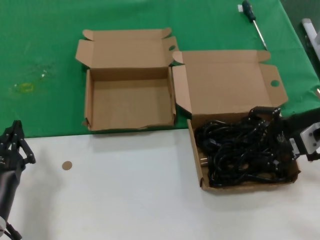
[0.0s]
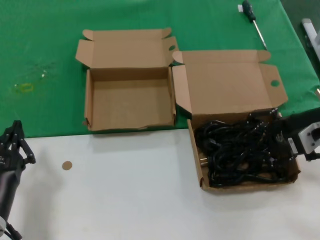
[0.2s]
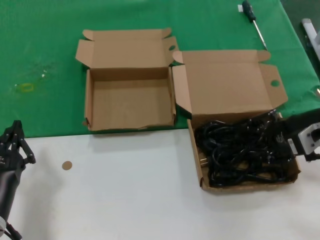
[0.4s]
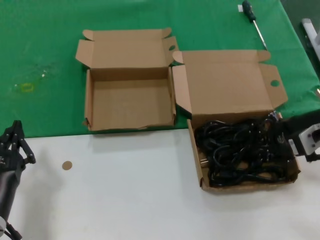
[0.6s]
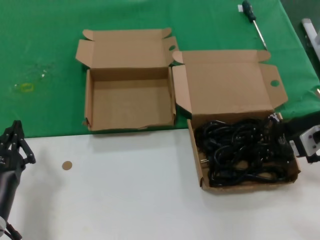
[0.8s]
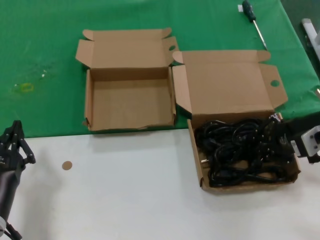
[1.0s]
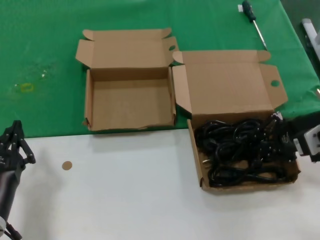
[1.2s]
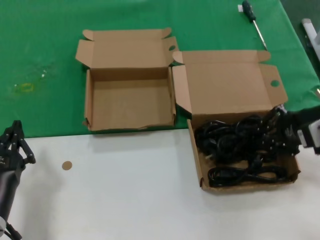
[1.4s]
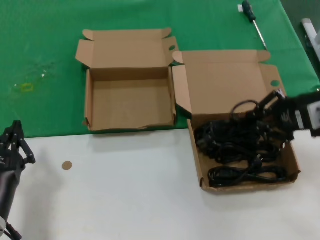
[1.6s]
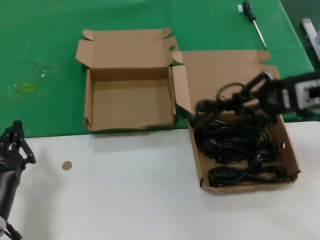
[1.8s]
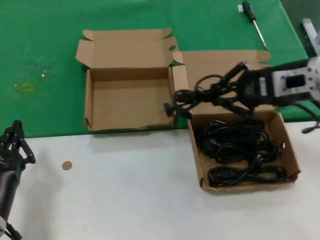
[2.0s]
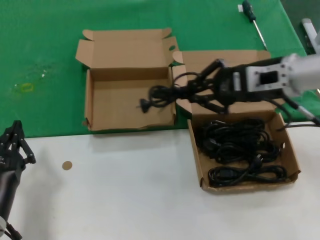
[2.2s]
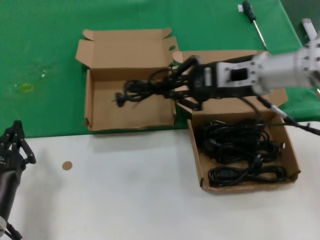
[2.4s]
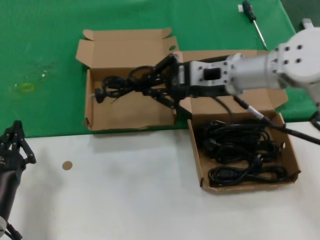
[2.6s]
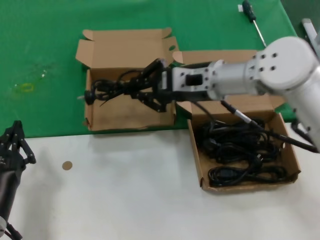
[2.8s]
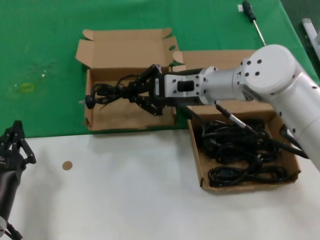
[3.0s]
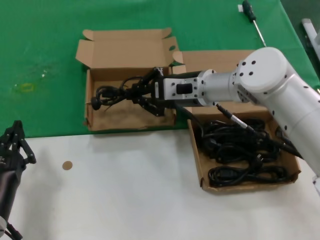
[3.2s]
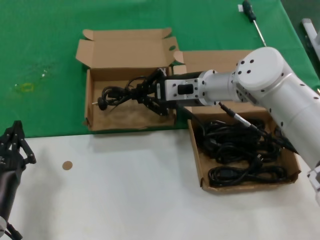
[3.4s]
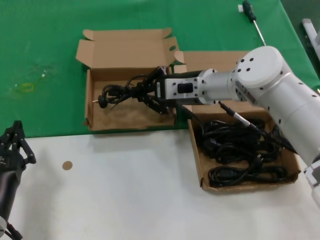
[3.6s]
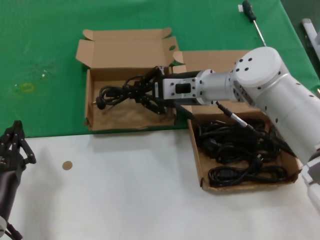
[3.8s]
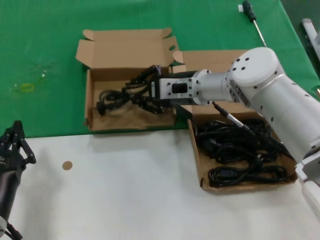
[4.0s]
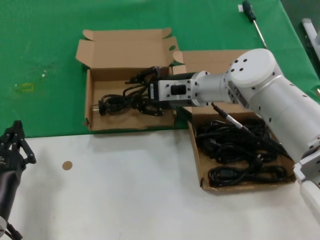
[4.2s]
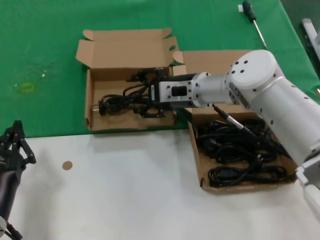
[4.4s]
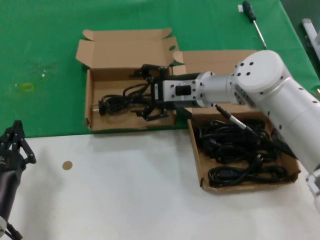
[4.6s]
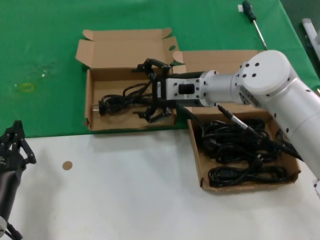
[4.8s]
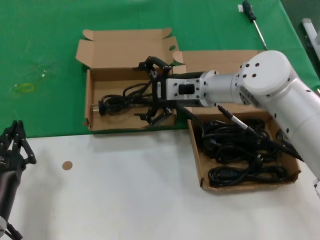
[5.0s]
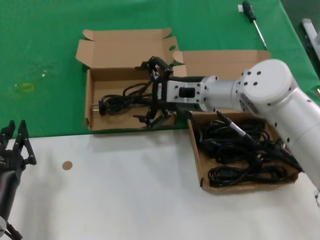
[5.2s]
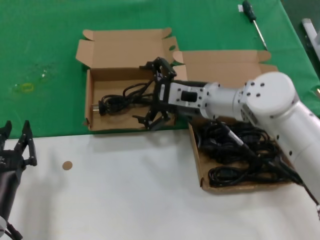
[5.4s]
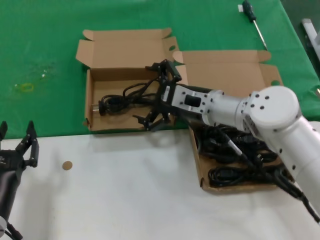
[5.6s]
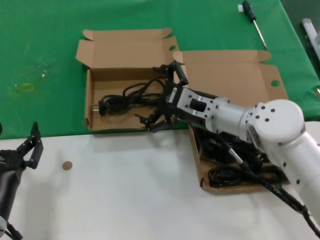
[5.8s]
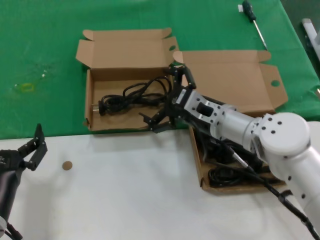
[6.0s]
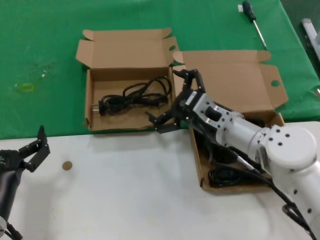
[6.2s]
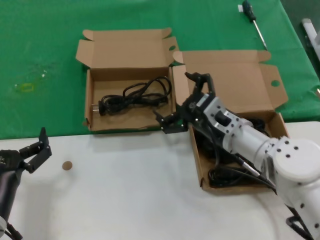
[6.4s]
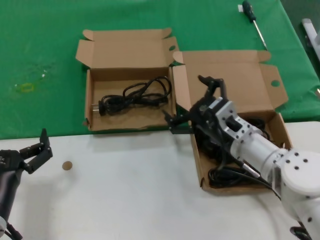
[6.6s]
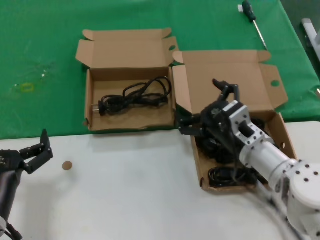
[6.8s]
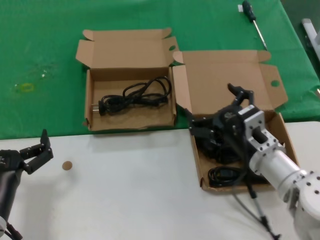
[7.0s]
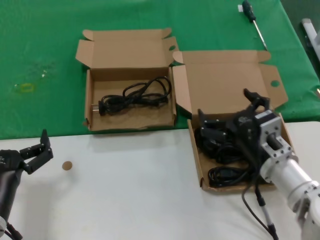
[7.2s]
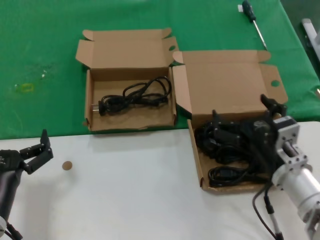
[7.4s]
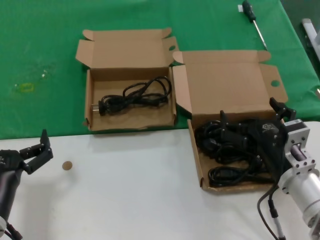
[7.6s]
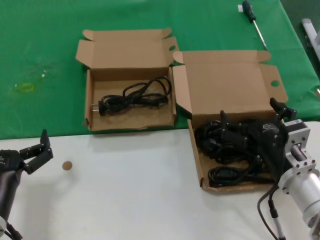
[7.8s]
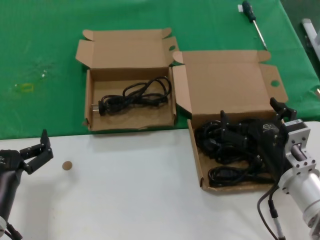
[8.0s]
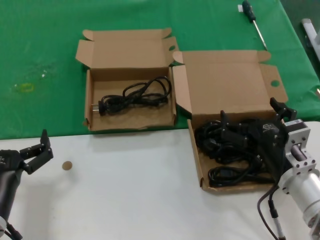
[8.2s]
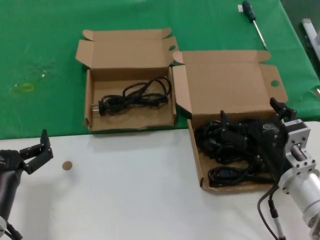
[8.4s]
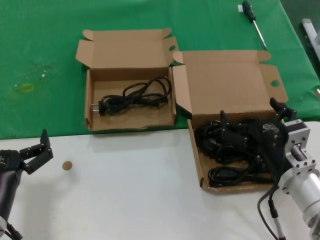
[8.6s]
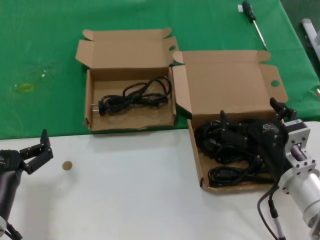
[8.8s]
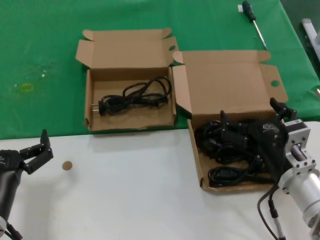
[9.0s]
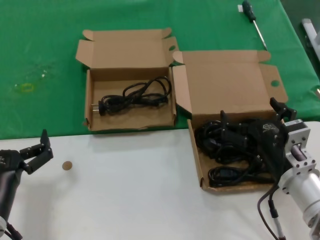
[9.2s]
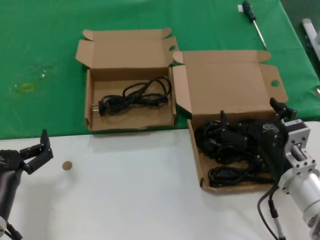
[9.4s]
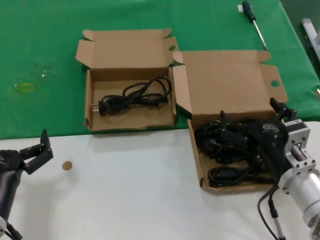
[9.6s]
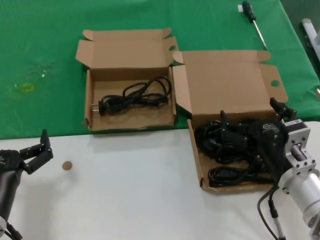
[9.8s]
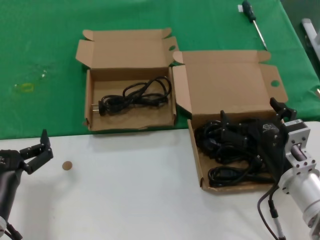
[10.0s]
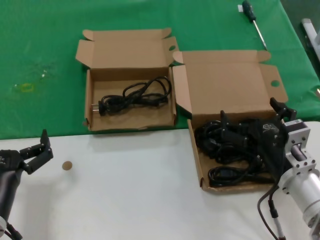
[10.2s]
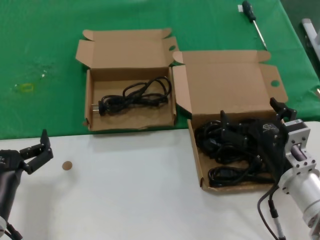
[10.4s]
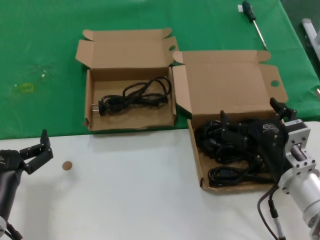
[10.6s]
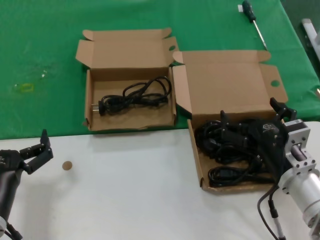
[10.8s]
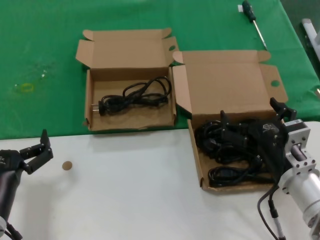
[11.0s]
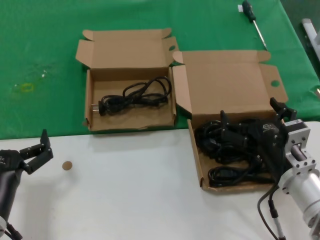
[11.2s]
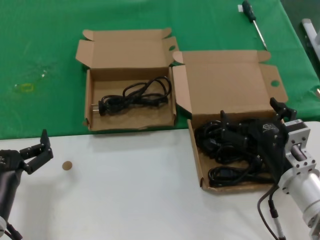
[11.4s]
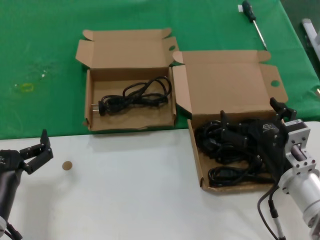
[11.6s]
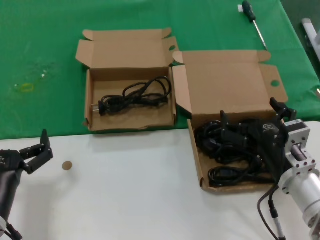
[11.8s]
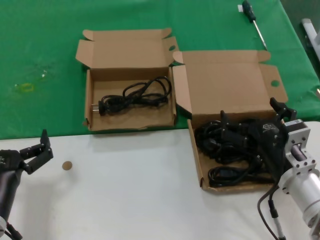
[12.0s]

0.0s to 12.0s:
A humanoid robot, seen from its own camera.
Task of the whole recording: take the parts from the box containing them and put them into an empty box.
Step, 0.8s to 4.6s: Place the data cable in the another box.
0.0s to 1.6s: The hands stay close to where they were, moving slightly.
1.6s to 3.0s: The right hand heads to the left and forward, covering some 25 cm.
3.0s to 4.4s: There are only small adjustments of the hands.
4.4s to 6.0s: The right hand moves backward and downward, approximately 10 cm.
6.0s to 7.6s: The right hand heads backward and to the right, covering approximately 15 cm.
7.6s to 12.0s: Both hands stay about where they are.

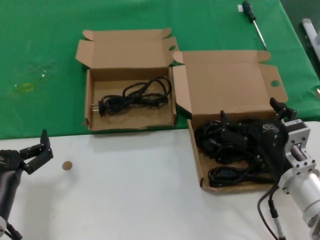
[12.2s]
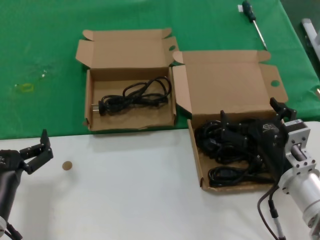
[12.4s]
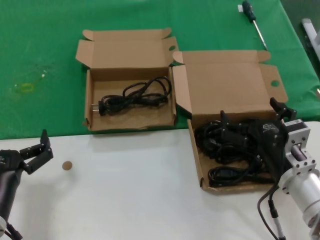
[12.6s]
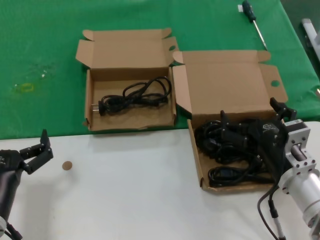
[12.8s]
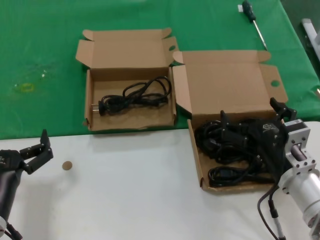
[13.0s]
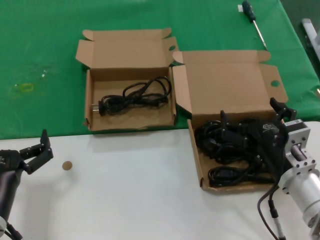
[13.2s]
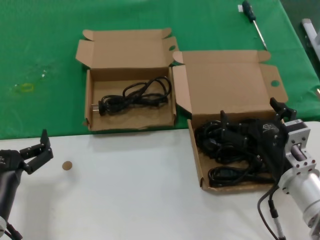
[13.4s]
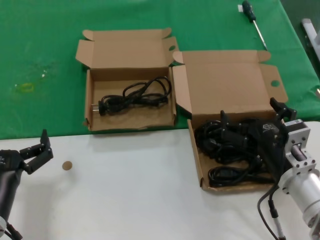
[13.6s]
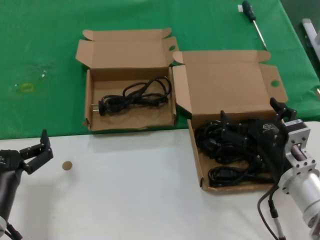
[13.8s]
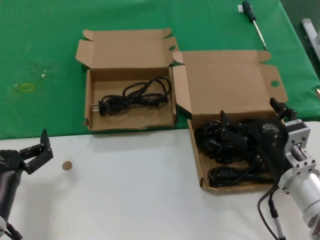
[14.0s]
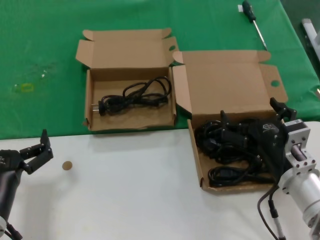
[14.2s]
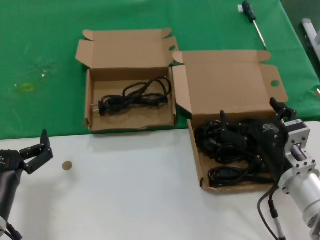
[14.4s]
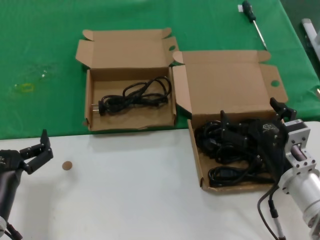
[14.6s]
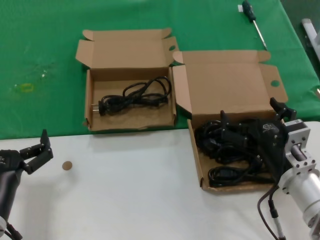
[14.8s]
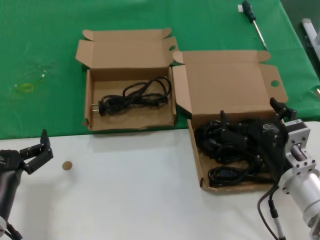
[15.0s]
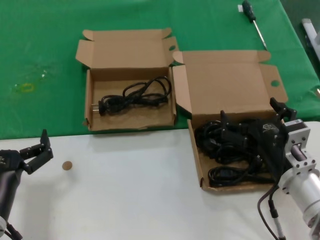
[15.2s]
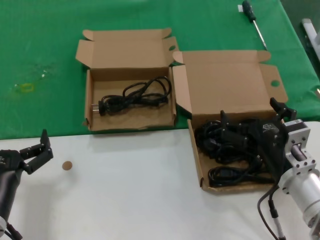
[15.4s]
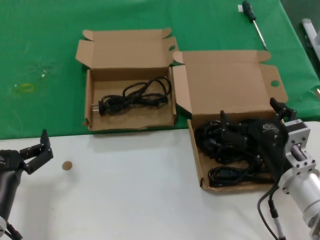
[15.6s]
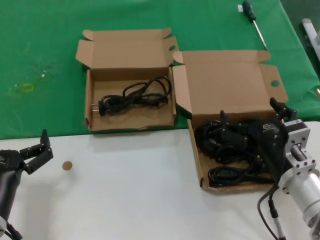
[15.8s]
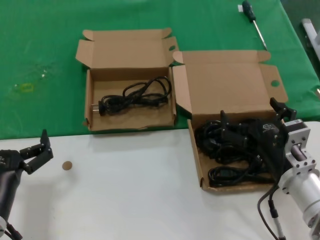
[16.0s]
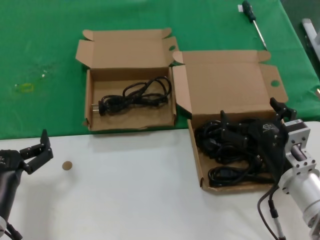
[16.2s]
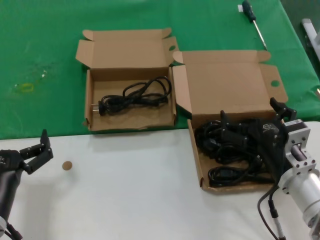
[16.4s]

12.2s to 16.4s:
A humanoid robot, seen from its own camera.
Task of the whole recording: take the parts from the box containing them and put them into an empty box.
12.2s to 16.4s: Both hands stay put.

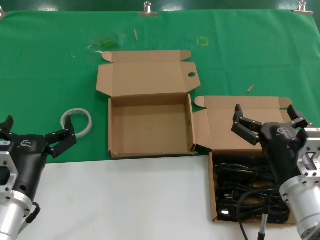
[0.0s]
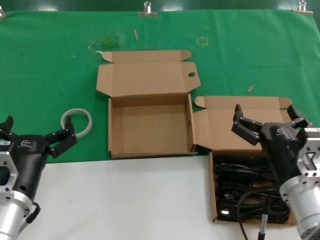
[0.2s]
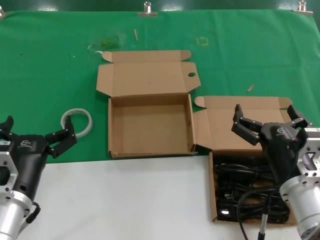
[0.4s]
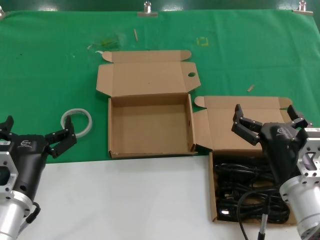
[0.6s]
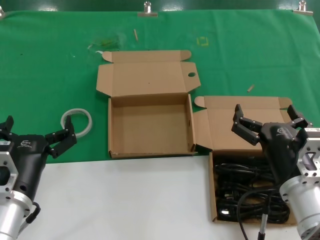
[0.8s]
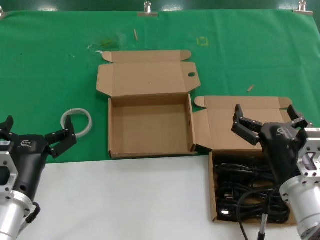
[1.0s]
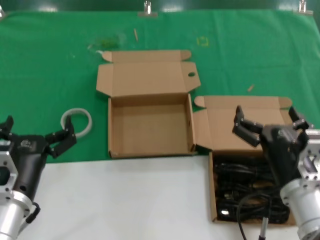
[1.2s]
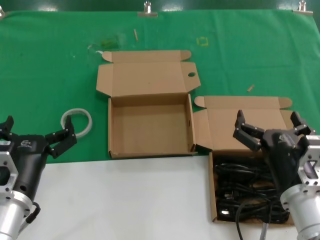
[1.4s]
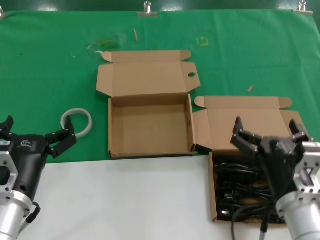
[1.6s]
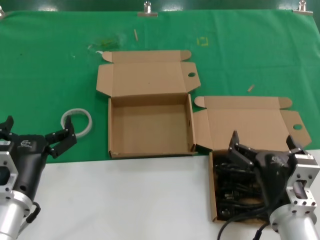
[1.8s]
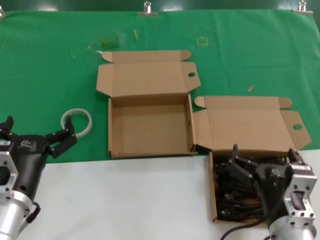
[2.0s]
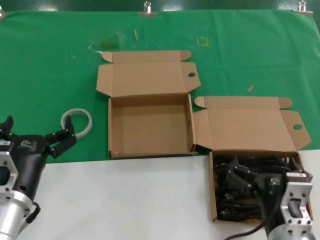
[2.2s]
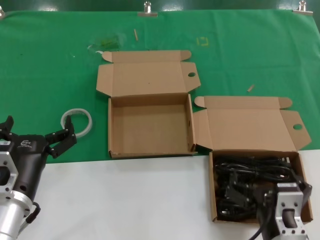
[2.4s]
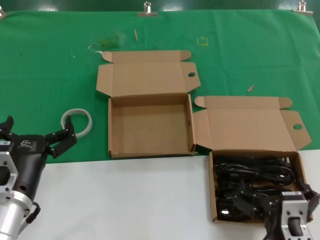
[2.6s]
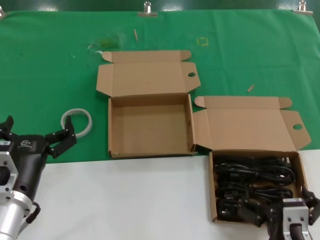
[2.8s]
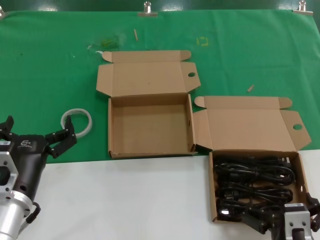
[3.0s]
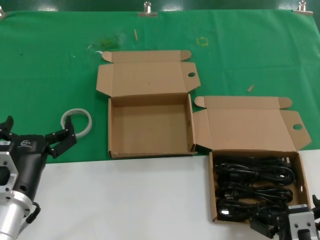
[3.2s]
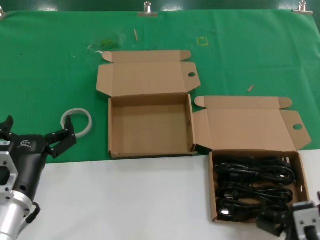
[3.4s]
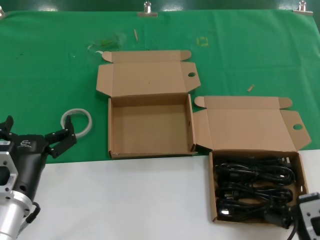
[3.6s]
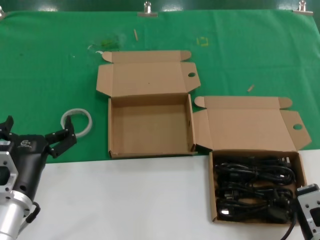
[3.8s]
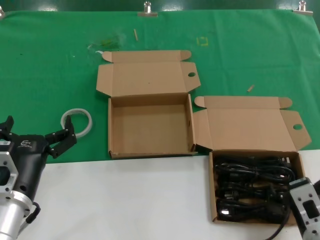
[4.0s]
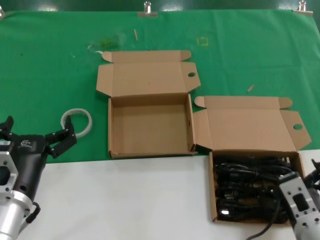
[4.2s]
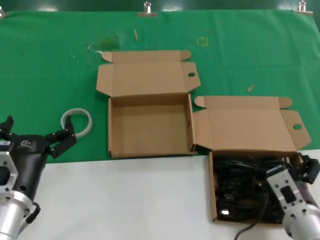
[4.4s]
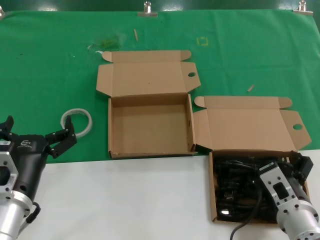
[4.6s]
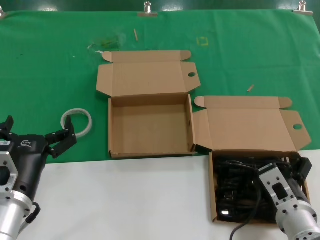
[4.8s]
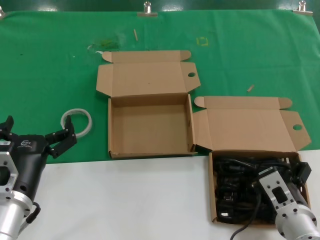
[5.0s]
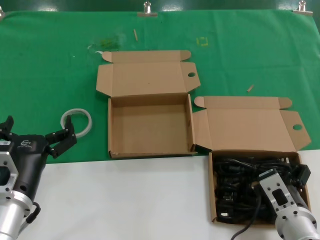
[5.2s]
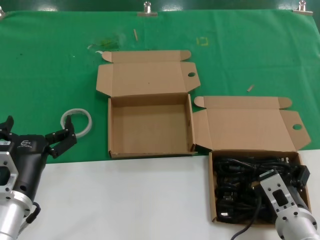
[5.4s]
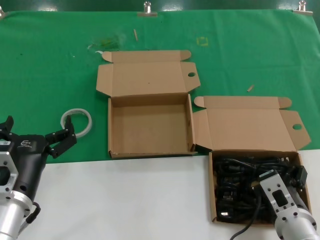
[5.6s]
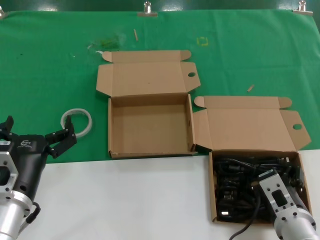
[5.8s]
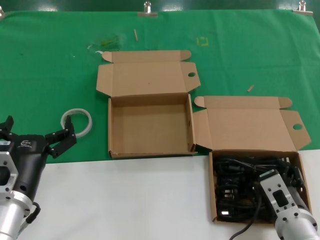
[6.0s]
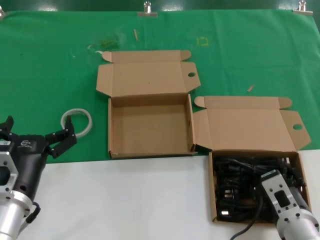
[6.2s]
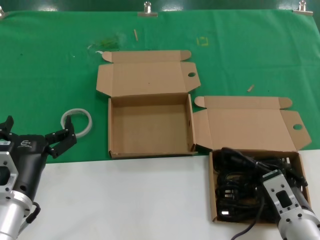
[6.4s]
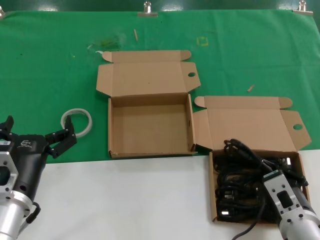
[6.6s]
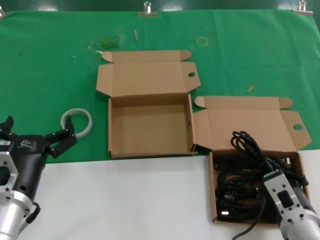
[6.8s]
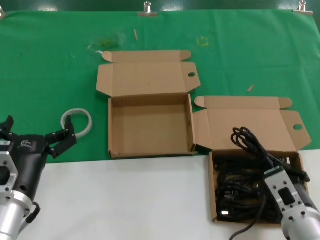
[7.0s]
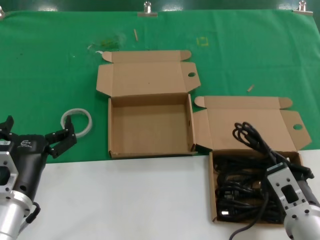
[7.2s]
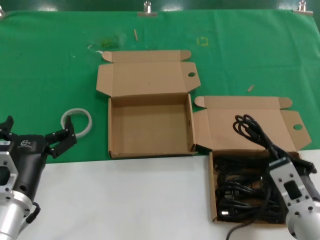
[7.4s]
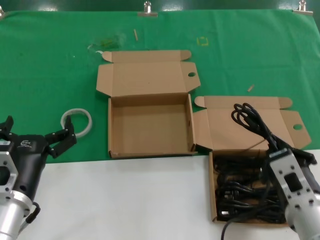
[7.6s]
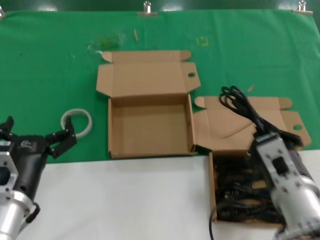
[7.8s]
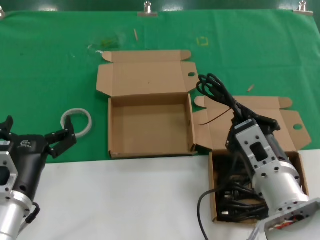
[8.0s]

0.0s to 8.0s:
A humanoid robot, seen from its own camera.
Task of the whole recording: take the parts from the box containing them and put them into an empty box.
Step, 0.0s to 6.2s: Grasp the data cable.
0.0s to 1.6s: The hands move only a little.
1.6s to 3.2s: The right hand goes about 10 cm backward.
3.2s to 4.8s: The right hand travels forward by about 10 cm.
4.8s to 6.4s: The hands make only small movements.
6.4s to 8.0s: The right hand shifts approximately 10 cm upward and to the left.
